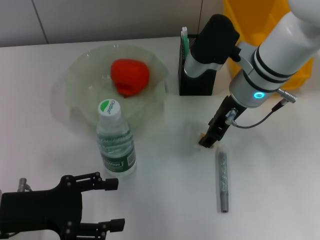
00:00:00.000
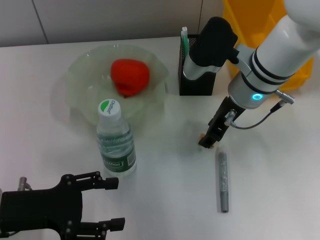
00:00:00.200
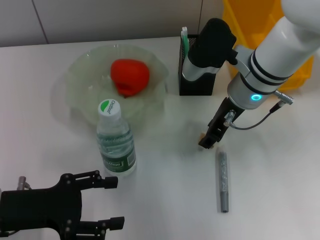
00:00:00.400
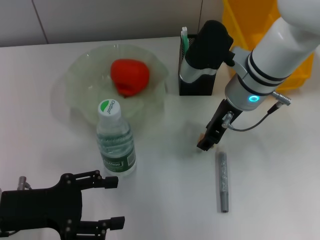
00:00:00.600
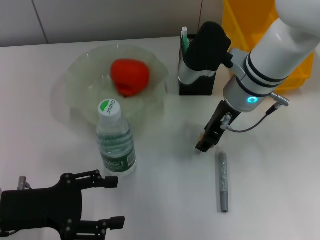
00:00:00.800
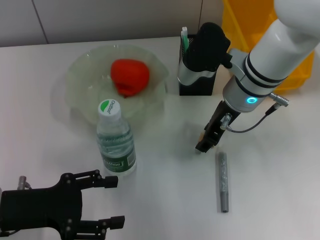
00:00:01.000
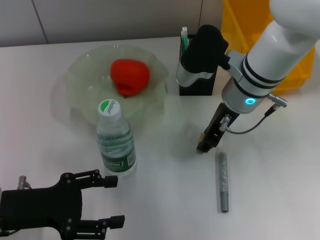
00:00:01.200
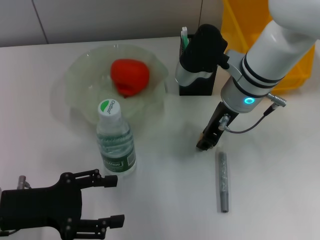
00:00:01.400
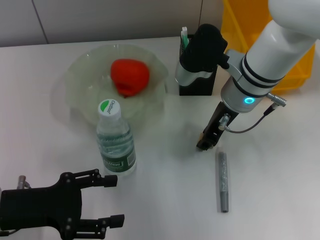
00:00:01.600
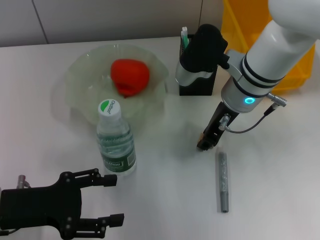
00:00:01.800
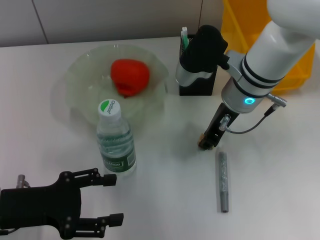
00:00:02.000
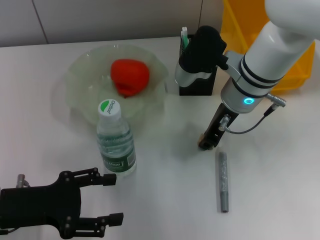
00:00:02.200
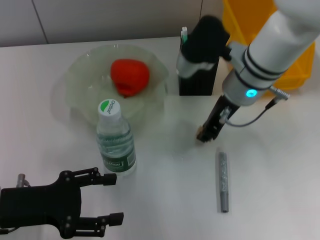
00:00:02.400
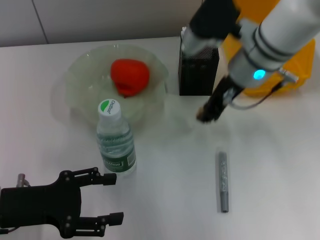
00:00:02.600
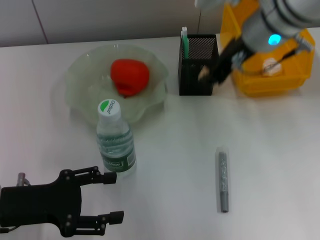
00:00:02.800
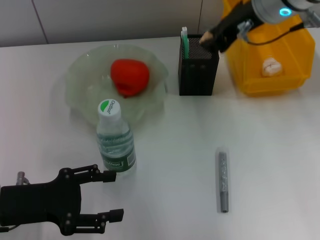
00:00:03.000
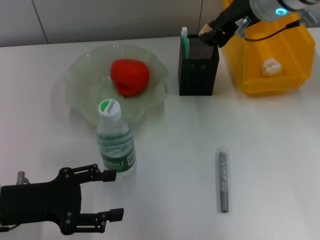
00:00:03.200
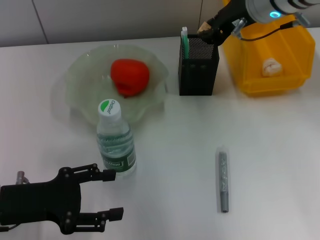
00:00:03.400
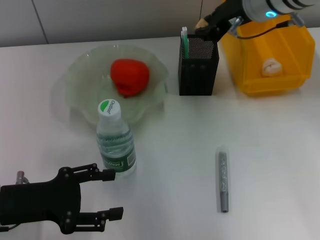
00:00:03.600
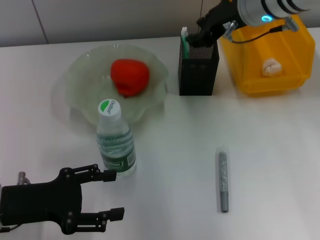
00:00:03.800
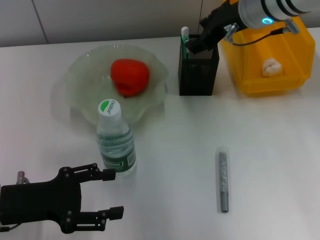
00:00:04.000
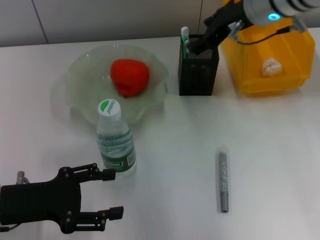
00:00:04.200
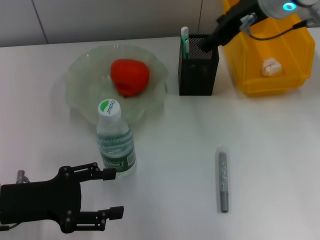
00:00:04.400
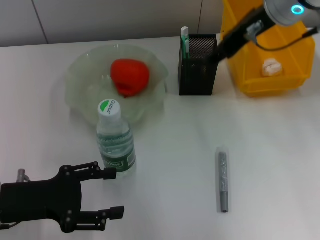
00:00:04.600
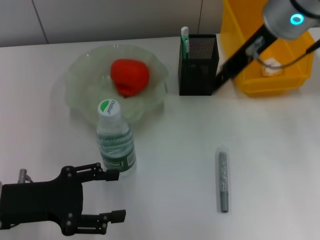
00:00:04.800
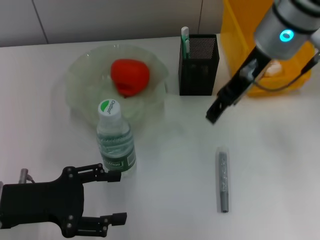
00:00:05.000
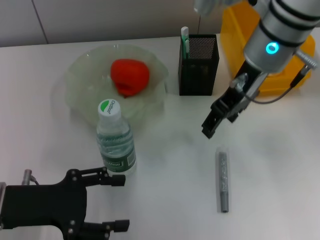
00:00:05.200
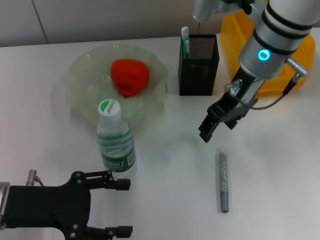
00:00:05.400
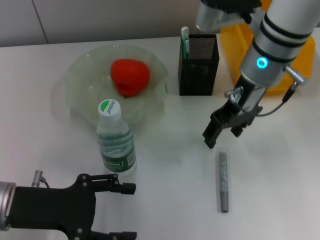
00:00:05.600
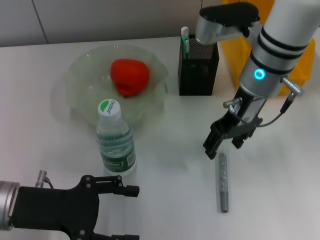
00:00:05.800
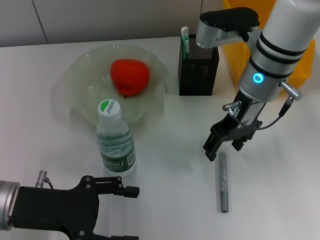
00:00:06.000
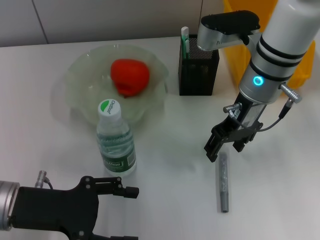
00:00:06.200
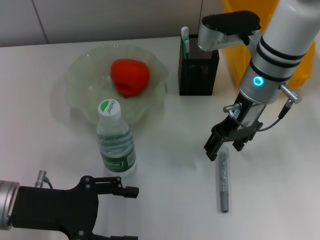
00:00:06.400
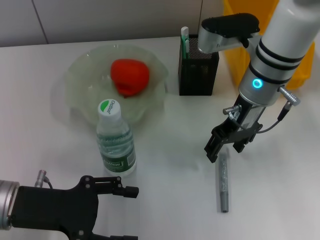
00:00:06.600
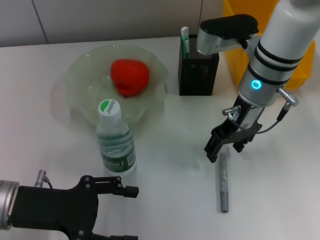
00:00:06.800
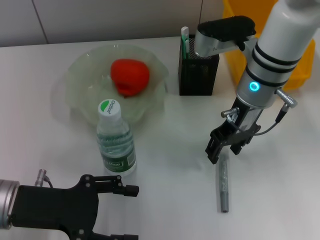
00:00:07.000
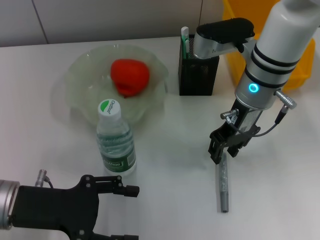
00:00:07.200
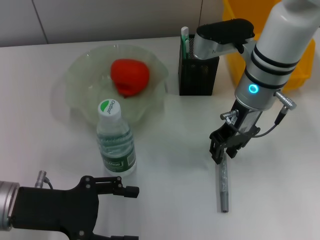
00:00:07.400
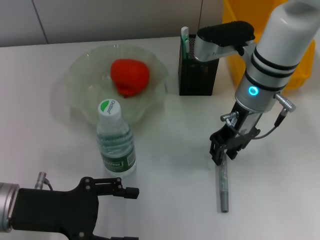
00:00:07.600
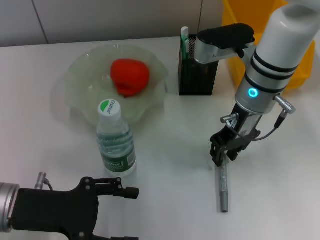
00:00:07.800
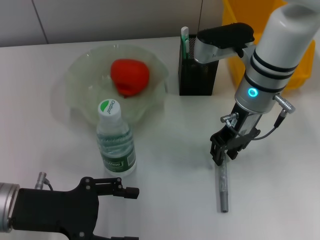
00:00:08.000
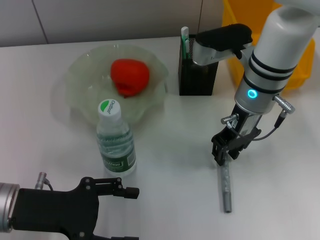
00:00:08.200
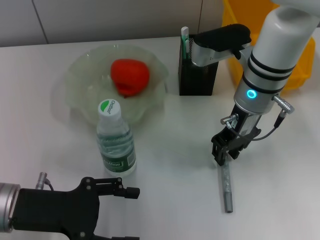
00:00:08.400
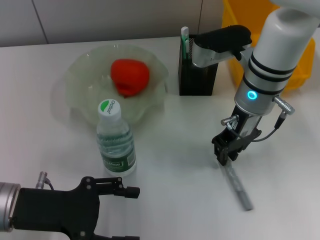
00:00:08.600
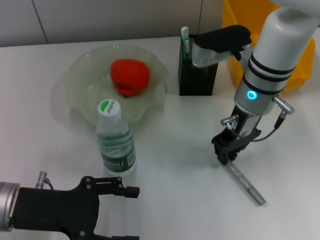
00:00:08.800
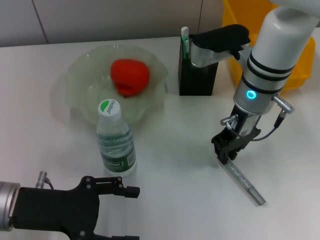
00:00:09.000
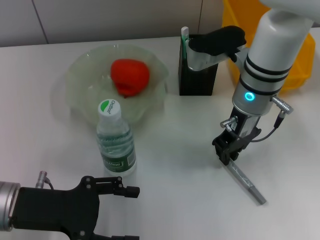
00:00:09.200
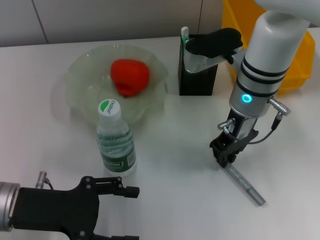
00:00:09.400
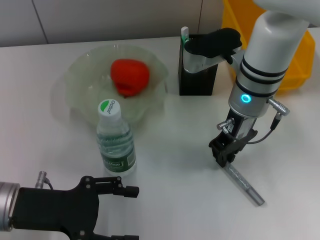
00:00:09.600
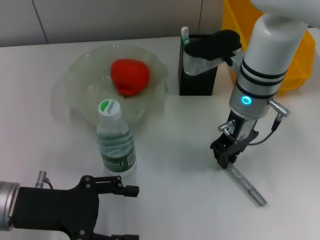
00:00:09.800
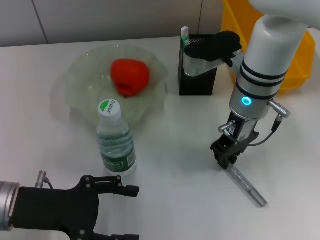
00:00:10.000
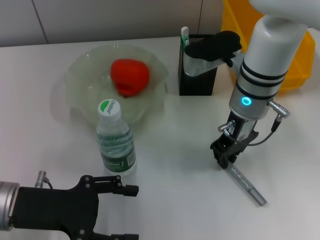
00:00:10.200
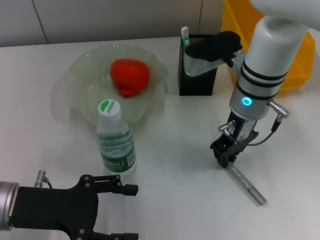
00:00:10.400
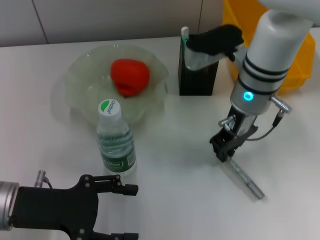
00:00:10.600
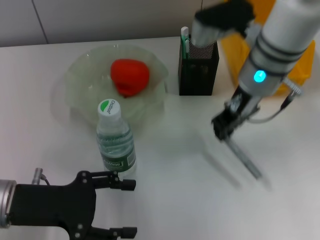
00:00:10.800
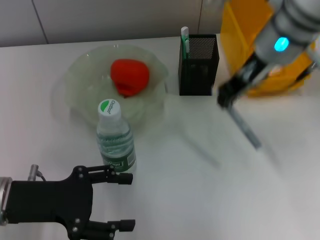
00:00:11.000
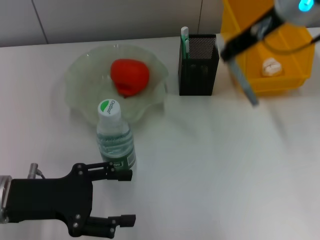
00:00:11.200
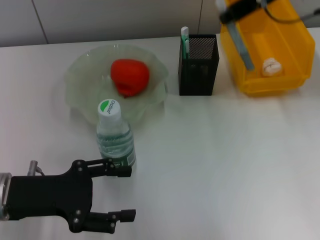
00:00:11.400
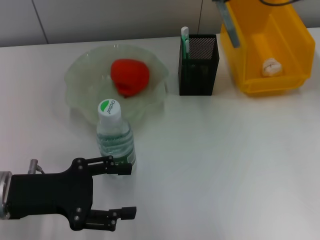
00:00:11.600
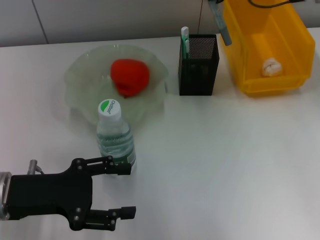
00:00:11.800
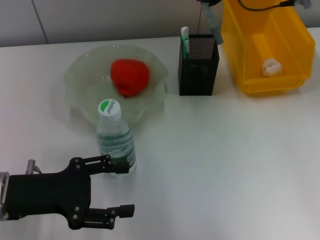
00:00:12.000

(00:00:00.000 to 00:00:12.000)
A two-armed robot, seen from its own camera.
Step, 00:00:00.000 - 00:00:02.000: Grab the eraser with the right hand.
Step, 00:00:02.200 - 00:00:03.800: Put the eraser into the pen holder with the right hand.
Step, 00:00:04.200 - 00:00:10.400: Grab the gray glue with the right hand.
00:00:00.000 - 00:00:01.600: The grippers move only a little.
00:00:01.600 - 00:00:03.000: The right gripper is displaced upward by about 10 cm.
00:00:03.000 - 00:00:04.400: The right gripper opens.
00:00:04.400 - 00:00:06.000: The right gripper moves downward, some 10 cm.
00:00:06.000 - 00:00:07.600: The right gripper closes.
00:00:07.600 - 00:00:09.000: Neither gripper changes place.
00:00:09.000 - 00:00:10.400: The two grippers keep their place.
00:00:10.400 - 00:00:12.000: The right gripper is displaced upward by approximately 15 cm.

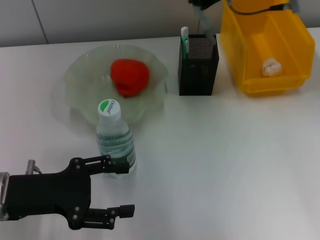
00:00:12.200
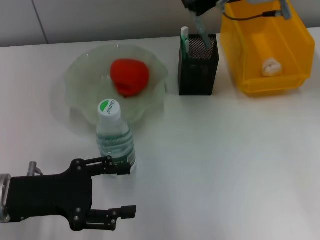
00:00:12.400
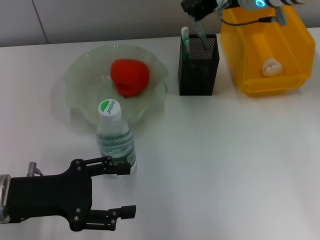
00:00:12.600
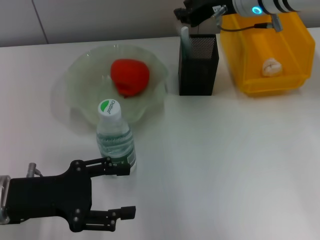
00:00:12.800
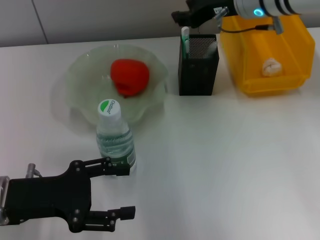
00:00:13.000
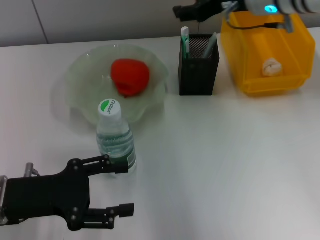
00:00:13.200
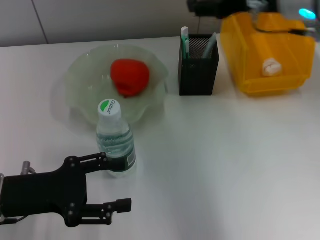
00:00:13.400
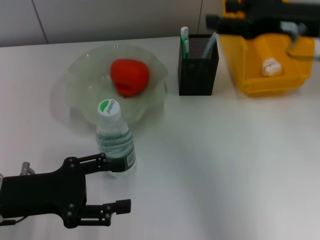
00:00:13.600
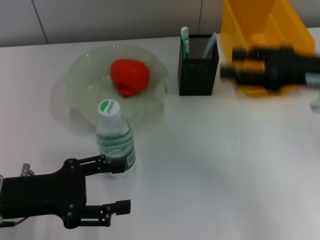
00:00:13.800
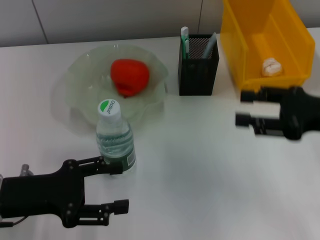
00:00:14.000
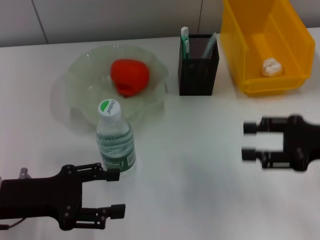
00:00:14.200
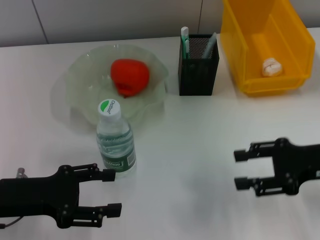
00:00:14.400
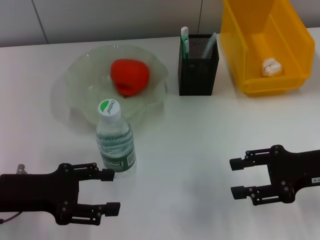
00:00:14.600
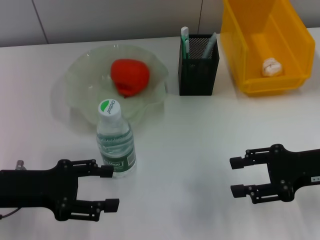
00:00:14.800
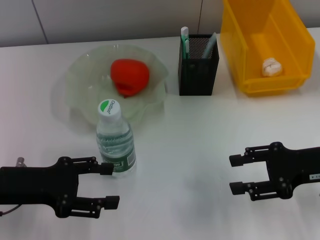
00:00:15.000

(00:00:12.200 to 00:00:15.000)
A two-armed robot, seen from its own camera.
00:00:12.200 - 00:00:13.600: The right gripper travels backward and to the right by roughly 15 cm, and opens its fingers.
00:00:13.600 - 00:00:15.000: The right gripper shifts some 15 cm downward and backward.

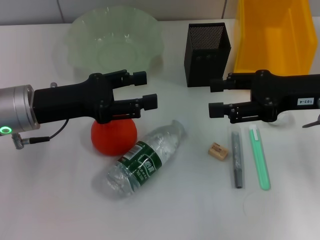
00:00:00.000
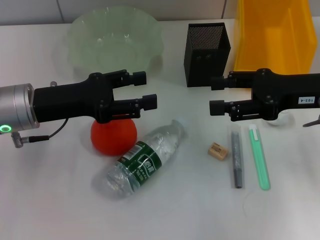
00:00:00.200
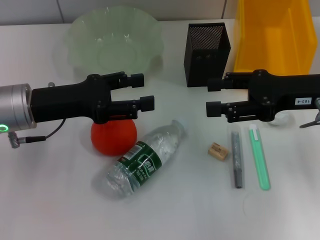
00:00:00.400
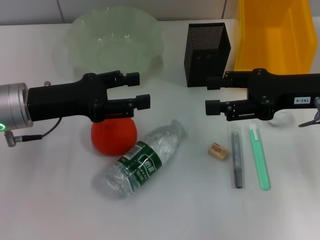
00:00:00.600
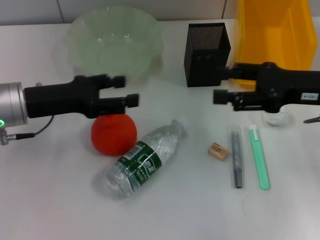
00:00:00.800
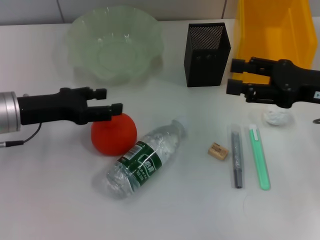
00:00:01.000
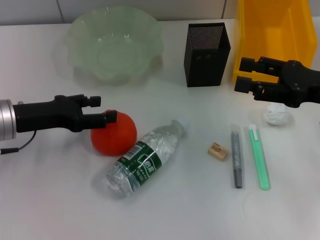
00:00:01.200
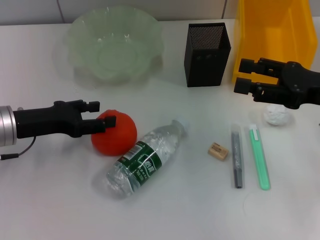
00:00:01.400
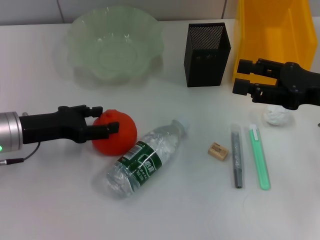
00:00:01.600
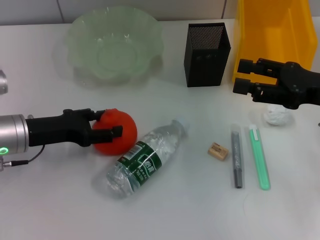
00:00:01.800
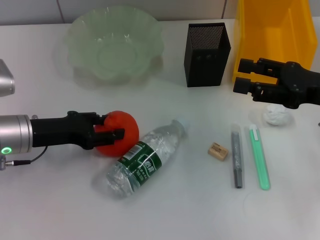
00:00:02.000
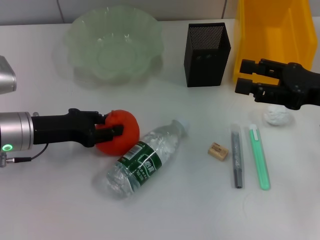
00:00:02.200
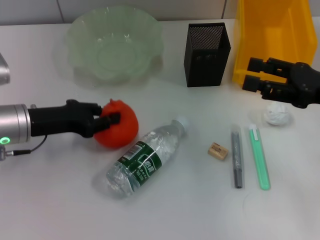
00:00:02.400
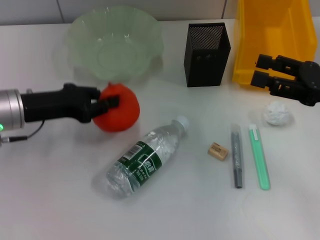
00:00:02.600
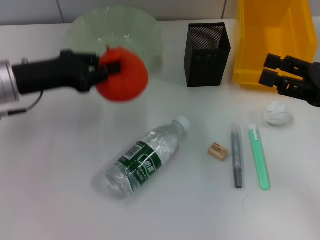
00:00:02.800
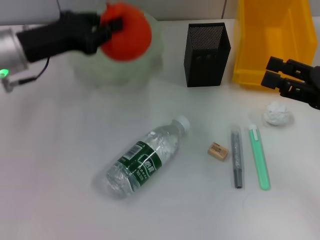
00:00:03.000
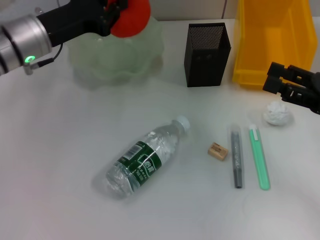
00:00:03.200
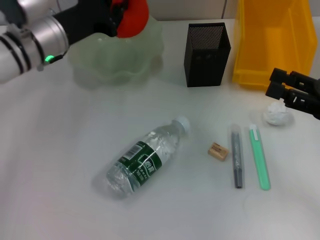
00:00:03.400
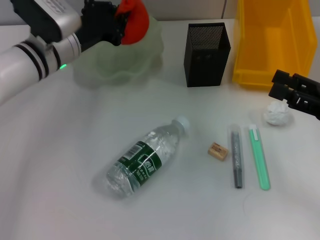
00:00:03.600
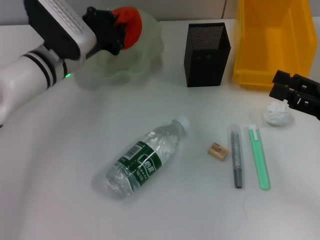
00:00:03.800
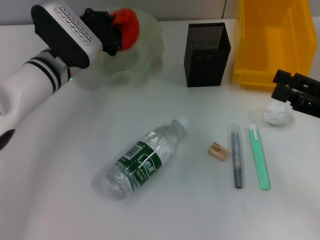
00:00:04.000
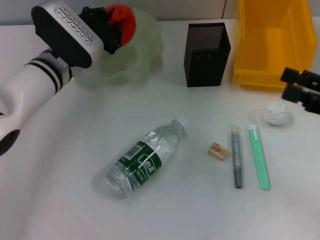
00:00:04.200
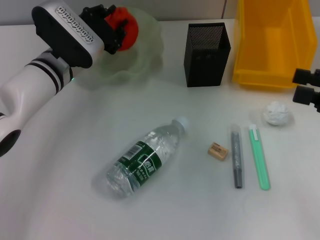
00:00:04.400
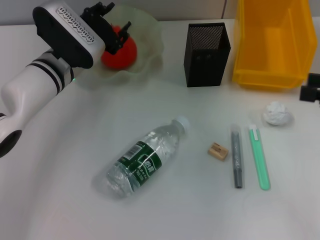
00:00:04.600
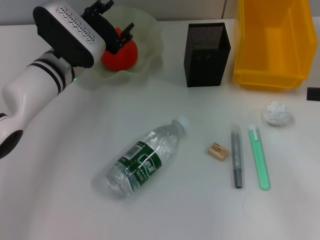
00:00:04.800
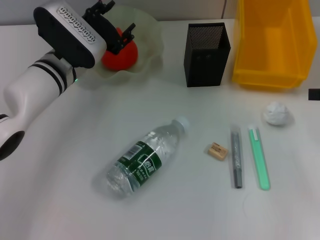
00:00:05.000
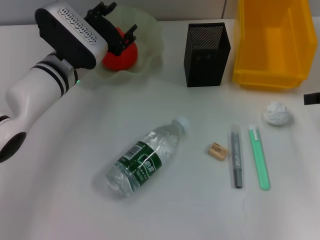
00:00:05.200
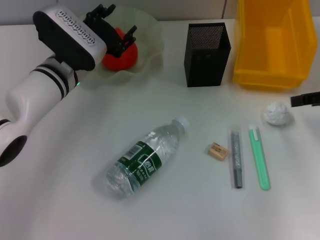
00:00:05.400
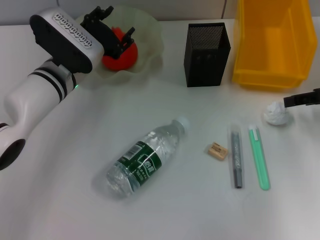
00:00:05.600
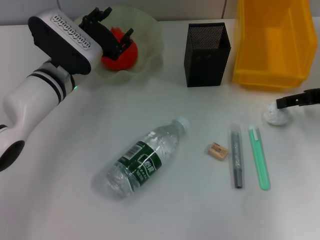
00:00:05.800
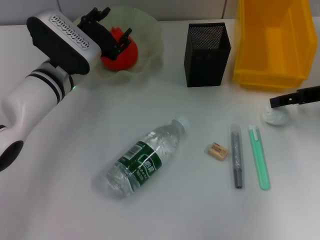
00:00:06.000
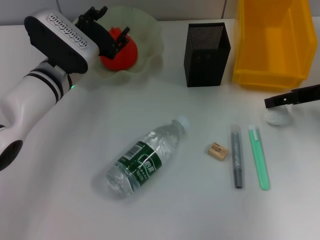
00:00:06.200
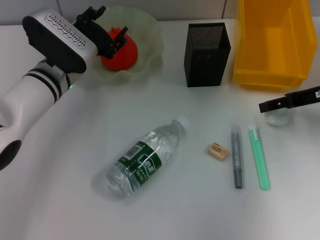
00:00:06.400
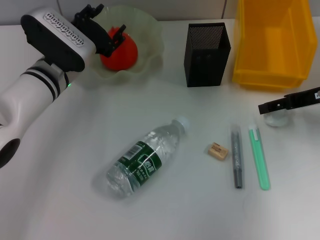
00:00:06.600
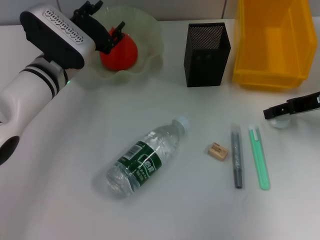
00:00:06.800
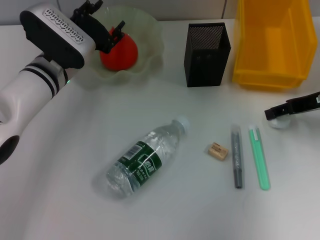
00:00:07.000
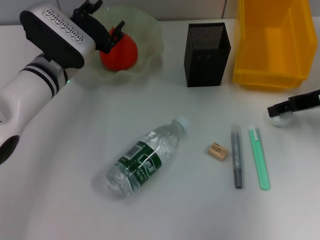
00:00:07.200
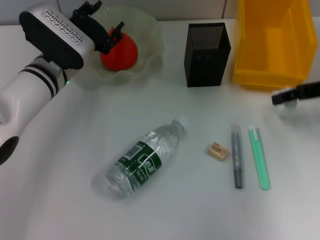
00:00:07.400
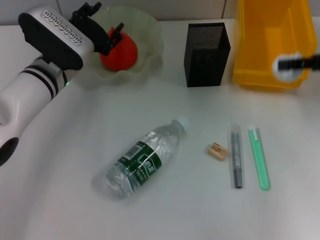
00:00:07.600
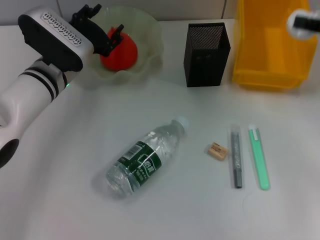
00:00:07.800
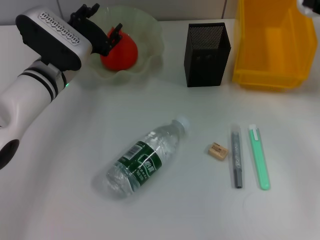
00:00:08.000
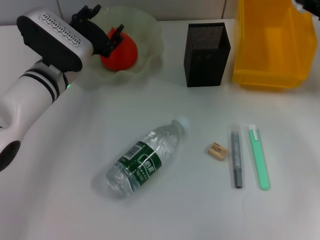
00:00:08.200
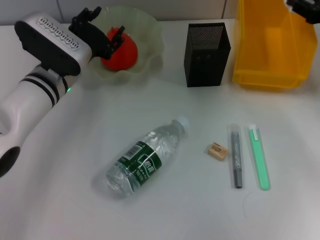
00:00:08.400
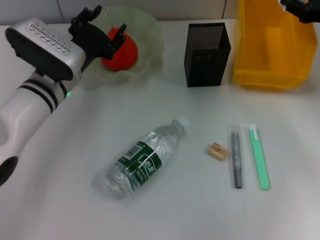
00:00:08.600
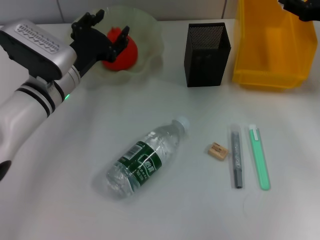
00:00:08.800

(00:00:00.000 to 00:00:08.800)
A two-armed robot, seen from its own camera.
Step, 00:00:00.000 - 00:00:02.200: Grab the orange with the left hand.
Step, 00:00:02.400 - 00:00:04.400: Place the orange into the fruit bowl with the left hand.
Step, 00:00:04.600 - 00:00:07.000: Grab the paper ball with the right hand.
00:00:00.000 - 00:00:01.400: The left gripper shifts by about 5 cm.
00:00:01.400 - 00:00:03.000: The left gripper goes approximately 10 cm upward and forward, and closes.
00:00:03.000 - 00:00:04.400: The left gripper goes about 10 cm to the right and downward, while the right gripper moves some 5 cm.
00:00:04.400 - 00:00:05.800: The left gripper opens up. Meanwhile the right gripper shifts about 10 cm forward.
00:00:05.800 - 00:00:07.400: The right gripper closes its fingers.
